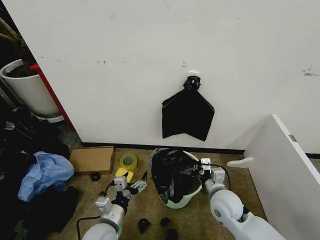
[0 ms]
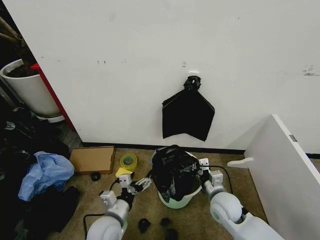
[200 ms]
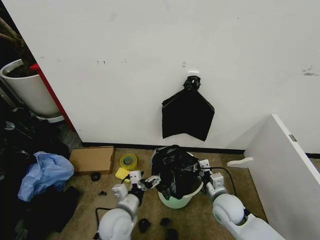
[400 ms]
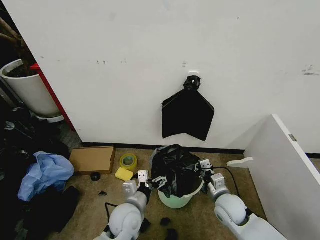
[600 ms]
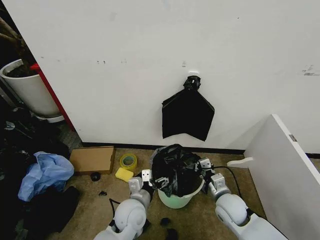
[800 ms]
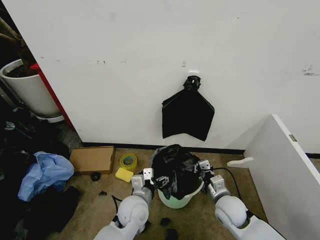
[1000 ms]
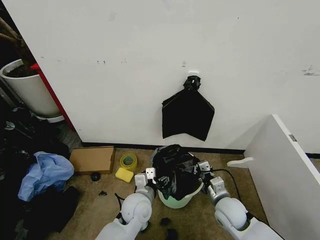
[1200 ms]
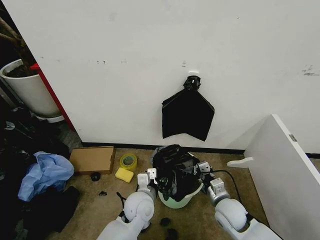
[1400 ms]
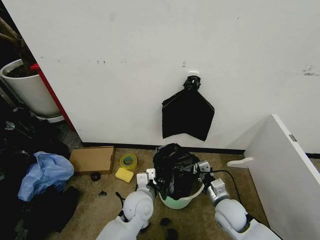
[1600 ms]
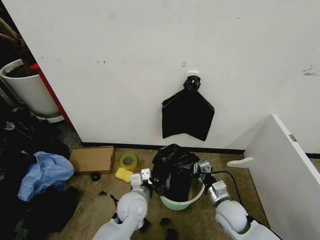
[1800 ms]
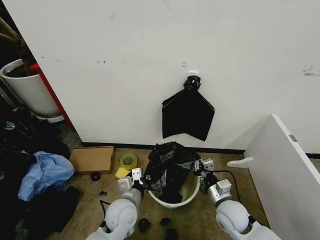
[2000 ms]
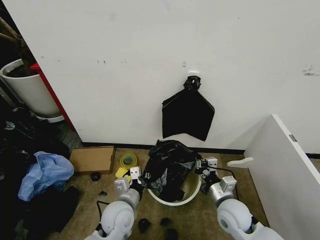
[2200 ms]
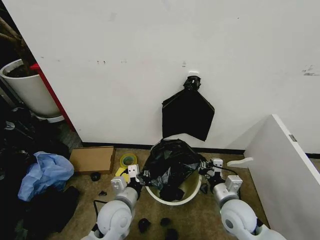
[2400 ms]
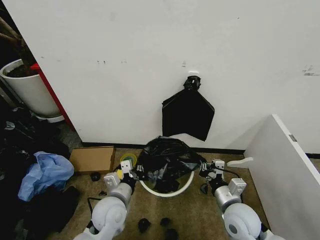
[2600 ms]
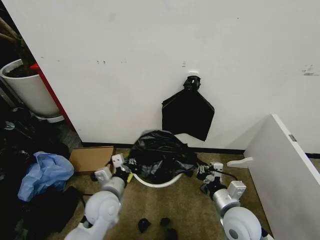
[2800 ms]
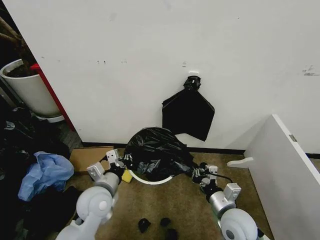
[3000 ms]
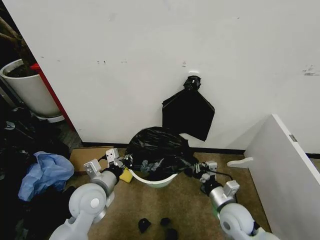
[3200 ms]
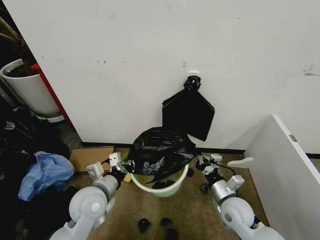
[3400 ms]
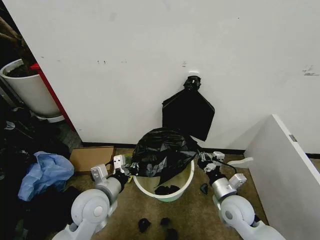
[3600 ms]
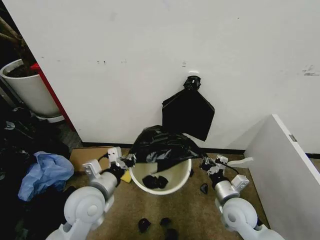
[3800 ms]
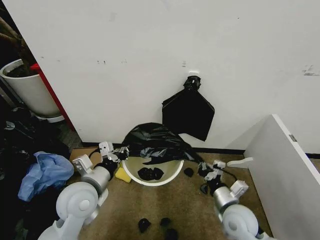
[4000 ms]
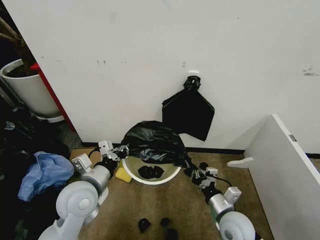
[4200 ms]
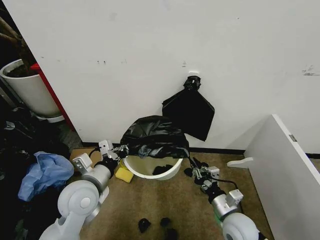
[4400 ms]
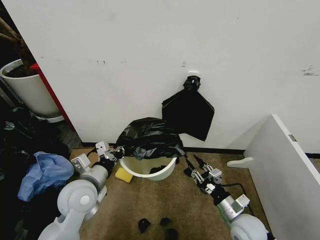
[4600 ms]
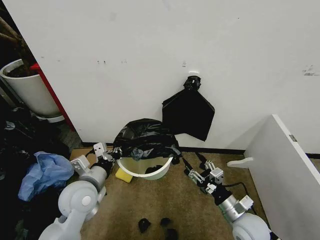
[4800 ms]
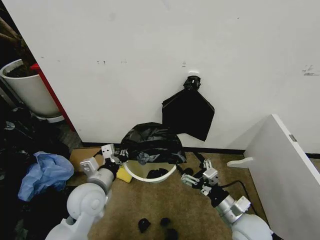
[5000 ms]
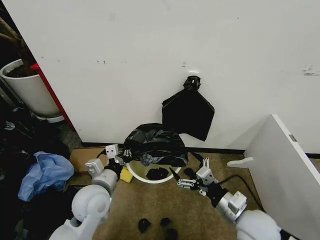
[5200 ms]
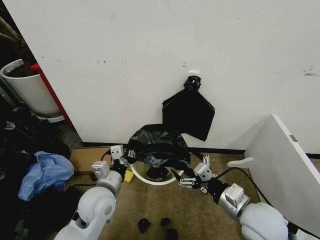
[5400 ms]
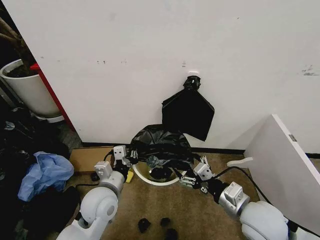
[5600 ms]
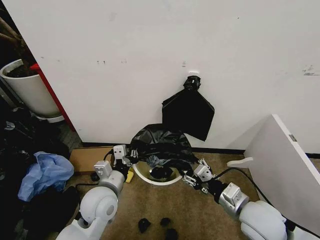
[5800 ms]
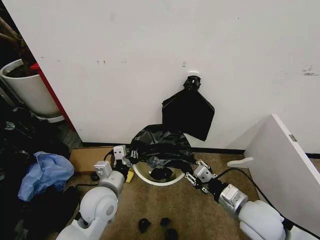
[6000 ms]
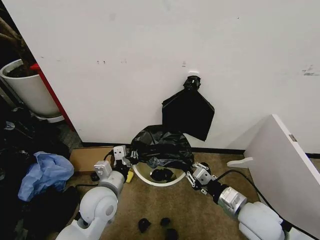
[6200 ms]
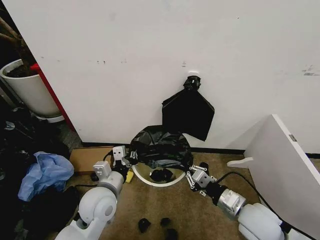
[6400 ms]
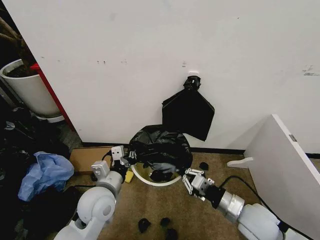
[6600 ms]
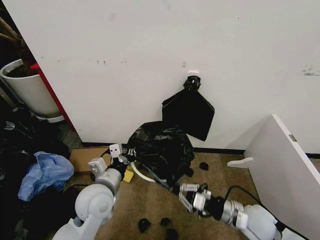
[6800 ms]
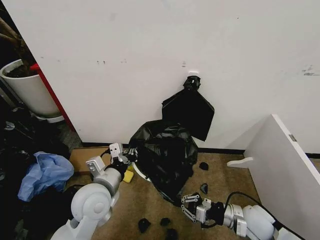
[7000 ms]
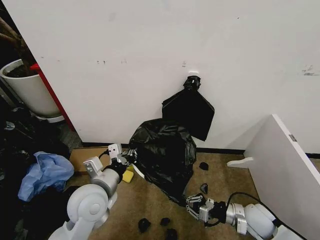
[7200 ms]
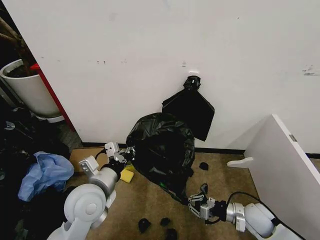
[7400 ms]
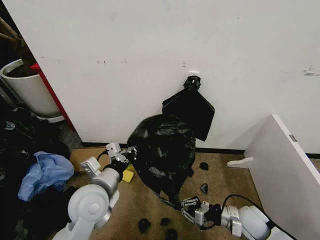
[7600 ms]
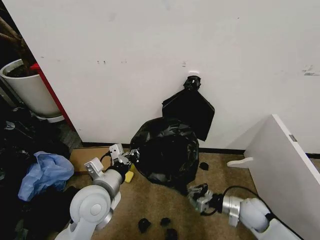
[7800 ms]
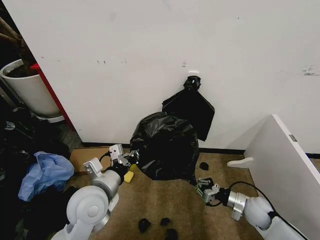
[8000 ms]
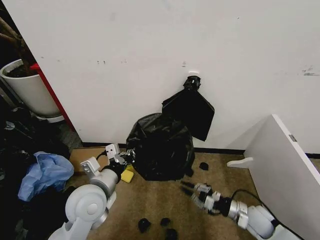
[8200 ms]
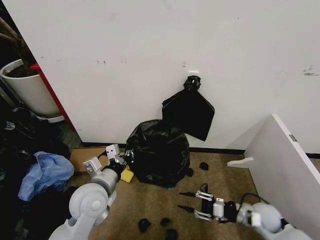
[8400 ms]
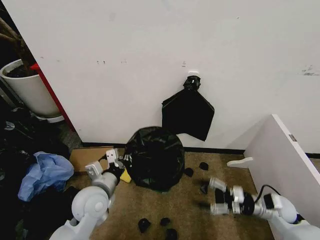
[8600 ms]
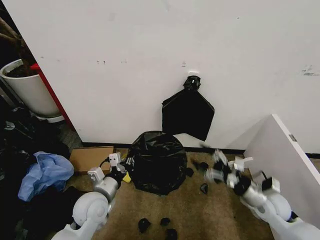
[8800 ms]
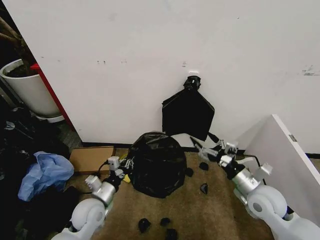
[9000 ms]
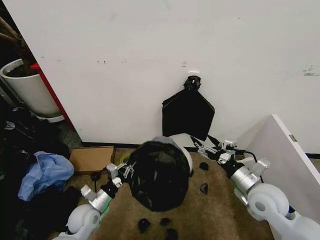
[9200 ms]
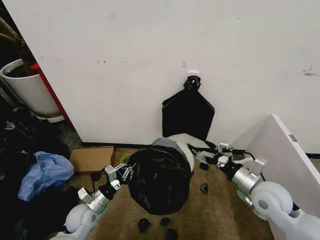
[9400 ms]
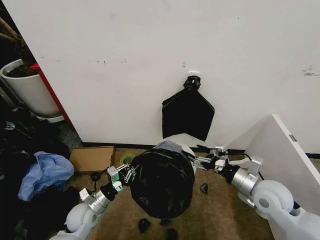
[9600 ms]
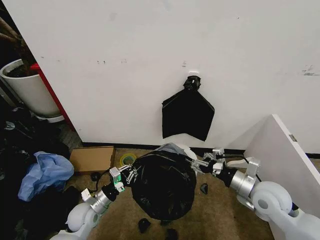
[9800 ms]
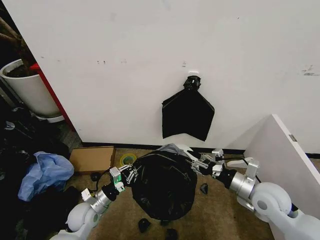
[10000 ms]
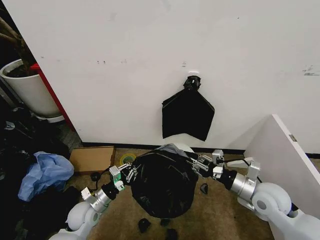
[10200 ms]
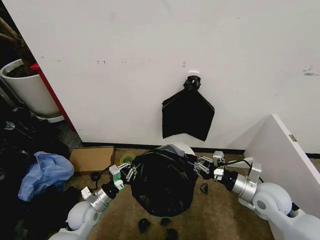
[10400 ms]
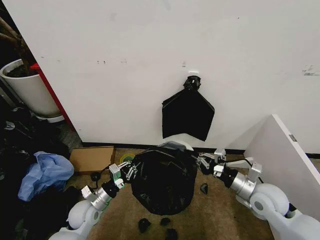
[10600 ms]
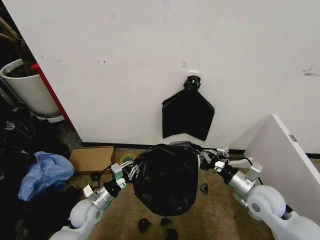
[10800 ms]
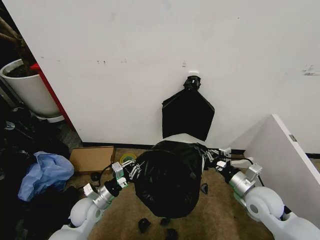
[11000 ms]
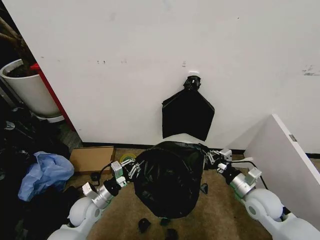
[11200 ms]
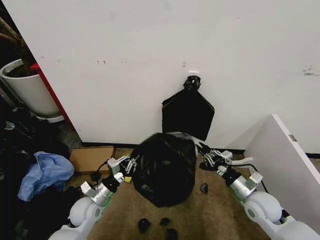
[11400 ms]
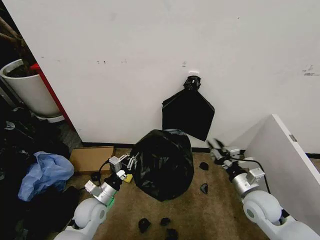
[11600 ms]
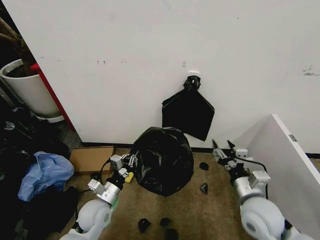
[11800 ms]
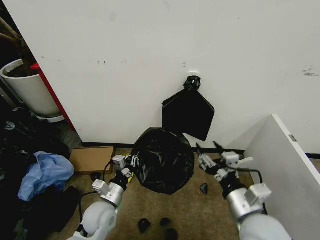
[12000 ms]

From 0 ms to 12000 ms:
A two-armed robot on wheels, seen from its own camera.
Task of the whole recording: Place the garbage bag over the trash bin.
From 0 ms to 1600 ms: The left gripper goes approximately 15 cm to the right and forward, and closes its fingers. Meanwhile the right gripper moves roughly 5 cm.
From 1600 ms to 3000 ms: The left gripper is displaced to the left by roughly 10 cm. The right gripper goes approximately 5 cm upward.
From 3000 ms to 4400 ms: The right gripper changes place by approximately 5 cm, while the left gripper is displaced upward by about 10 cm.
From 4400 ms to 6000 ms: The left gripper shifts by about 5 cm; the right gripper travels upward by roughly 10 cm, and opens, then closes once more.
From 6000 ms to 7600 ms: The right gripper shifts approximately 15 cm downward and to the right, and closes up.
From 7600 ms to 9000 ms: The left gripper shifts about 15 cm downward, while the right gripper is displaced upward by some 15 cm, and opens its fingers.
From 9000 ms to 10400 ms: The right gripper closes its fingers.
From 10400 ms to 12000 ms: The right gripper is displaced backward, to the left and upward by about 15 cm, and opens up. The left gripper heads to the right and upward, covering some 10 cm.

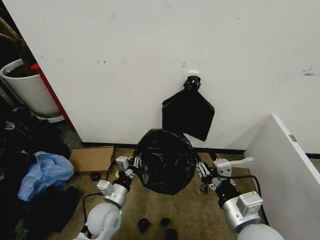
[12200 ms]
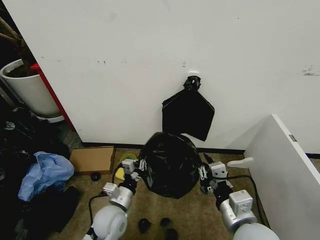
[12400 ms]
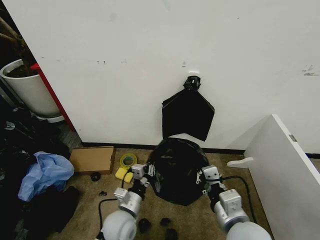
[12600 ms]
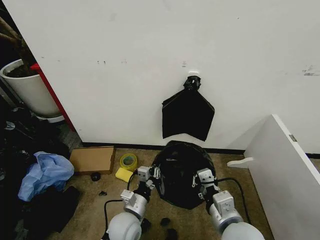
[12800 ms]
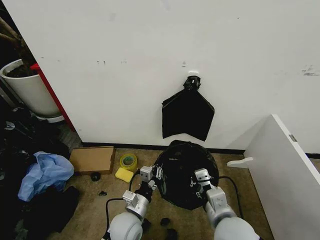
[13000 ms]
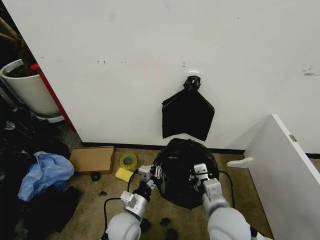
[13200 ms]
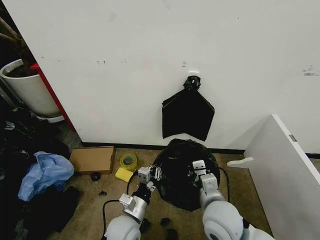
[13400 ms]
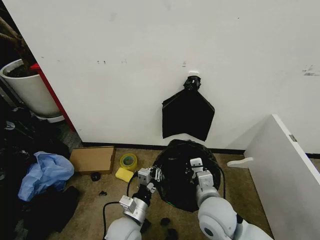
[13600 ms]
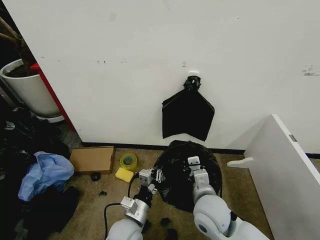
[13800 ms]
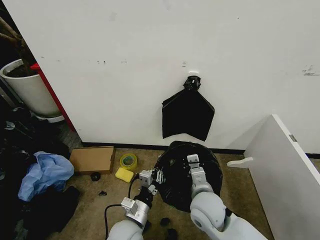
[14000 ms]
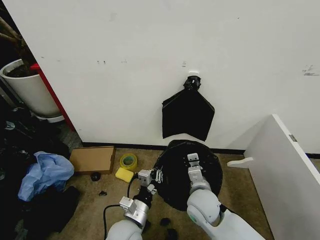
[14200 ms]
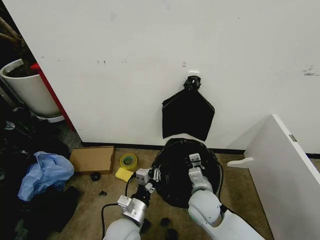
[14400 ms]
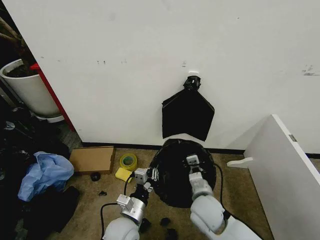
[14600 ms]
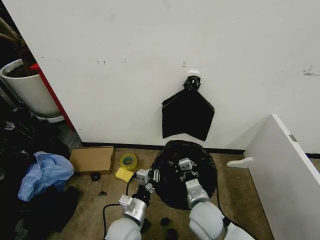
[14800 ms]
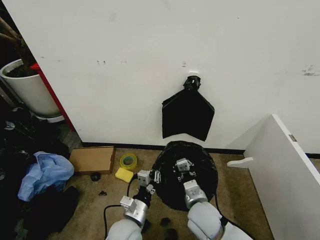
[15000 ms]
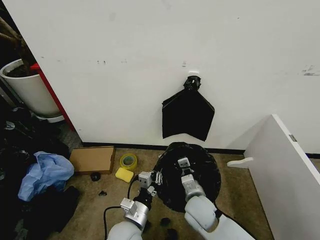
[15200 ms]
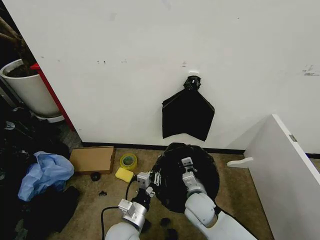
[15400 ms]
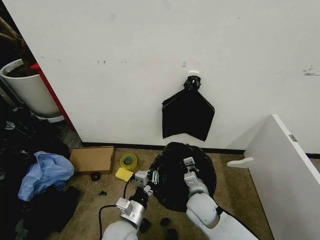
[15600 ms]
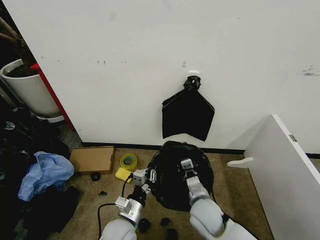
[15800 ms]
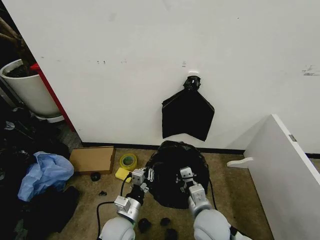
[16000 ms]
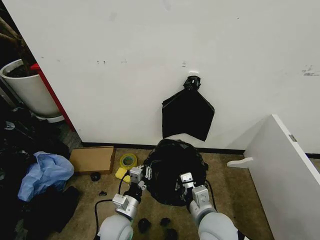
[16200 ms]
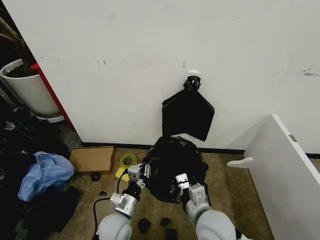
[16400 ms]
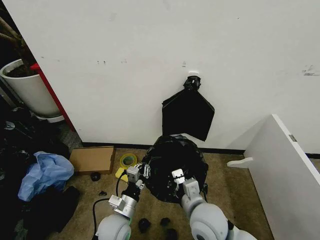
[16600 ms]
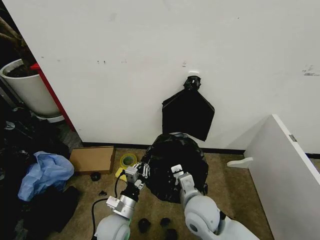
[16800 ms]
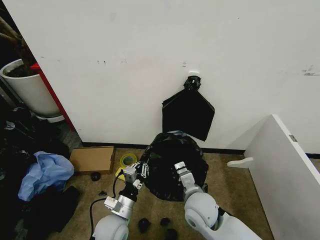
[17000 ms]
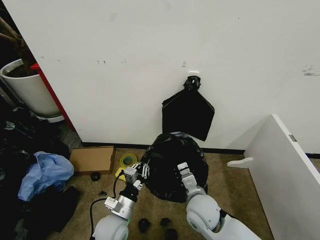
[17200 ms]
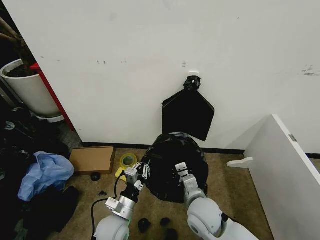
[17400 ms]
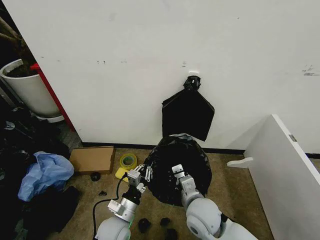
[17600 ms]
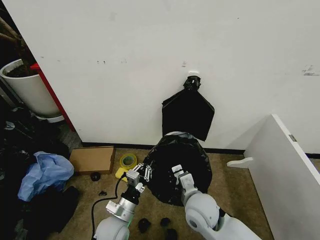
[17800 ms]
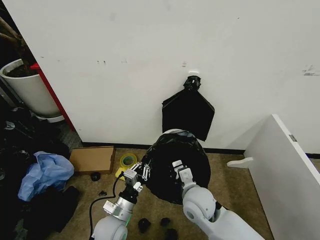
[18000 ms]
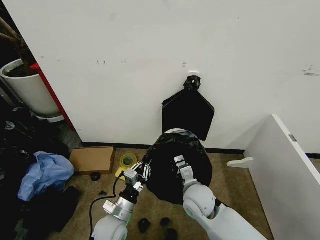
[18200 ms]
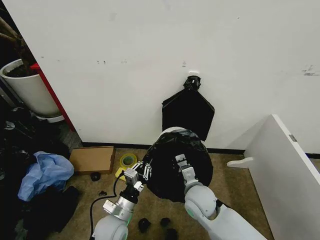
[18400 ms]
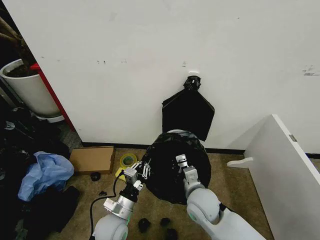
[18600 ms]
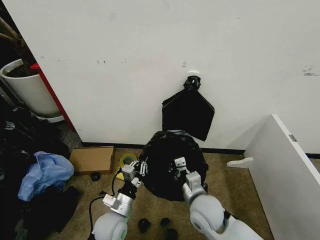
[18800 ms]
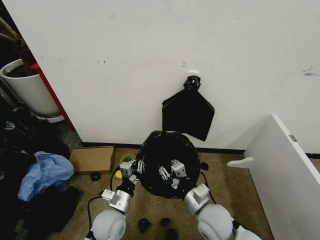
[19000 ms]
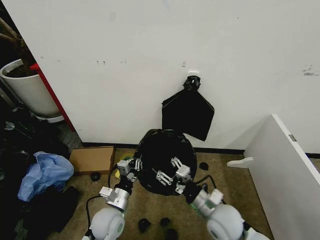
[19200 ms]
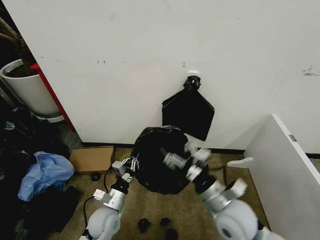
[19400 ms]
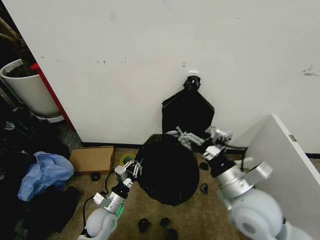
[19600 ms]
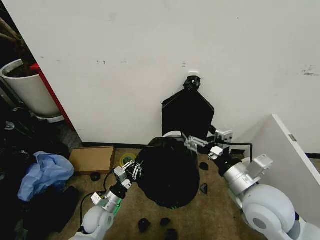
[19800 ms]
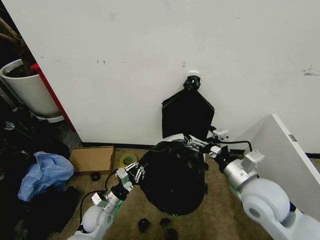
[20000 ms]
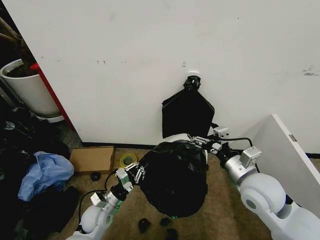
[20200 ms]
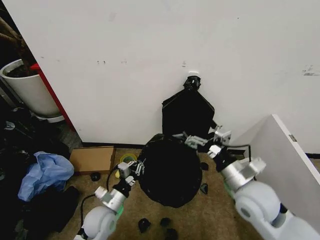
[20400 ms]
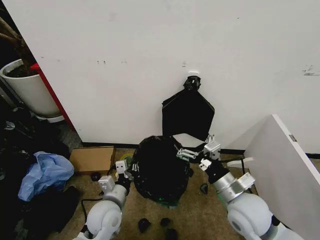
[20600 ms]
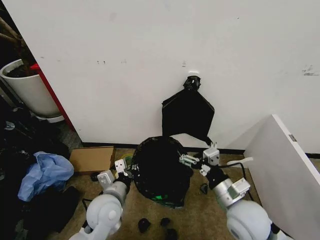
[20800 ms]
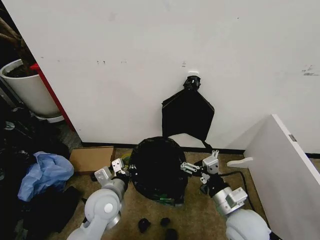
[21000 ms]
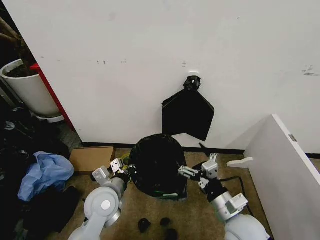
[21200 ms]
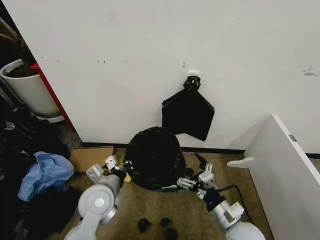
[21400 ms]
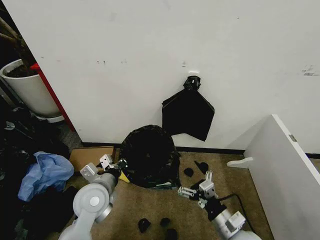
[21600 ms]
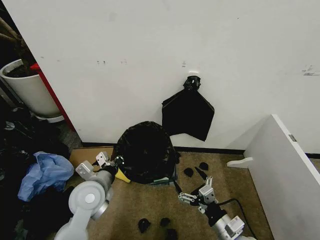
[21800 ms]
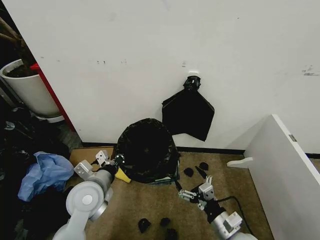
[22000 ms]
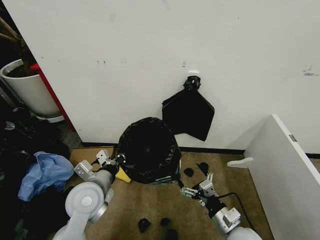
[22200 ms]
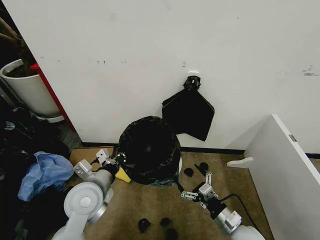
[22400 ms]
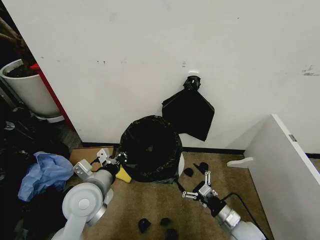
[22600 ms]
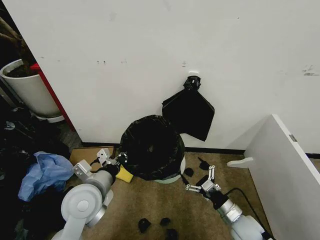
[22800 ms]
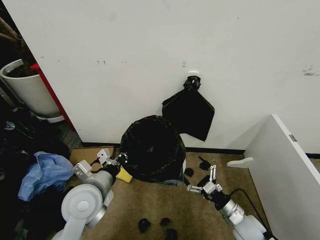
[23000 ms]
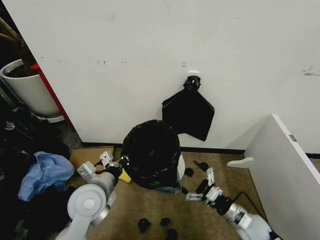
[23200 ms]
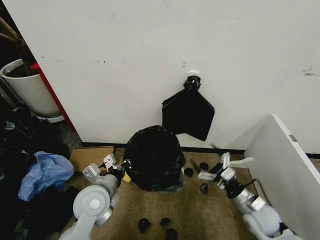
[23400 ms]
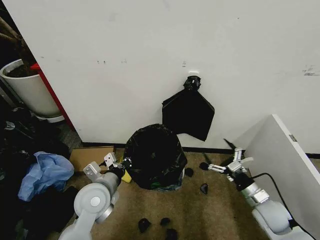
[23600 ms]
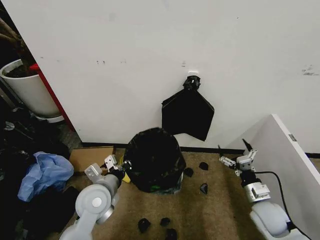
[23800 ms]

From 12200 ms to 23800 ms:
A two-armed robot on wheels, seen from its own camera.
Task of the whole recording: Place the garbage bag over the trash bin.
From 12200 ms to 13600 ms: The left gripper is displaced to the right by approximately 5 cm. Meanwhile the right gripper heads forward, to the left and downward, covering roughly 10 cm, and closes its fingers.
From 13600 ms to 15000 ms: The right gripper heads downward, covering roughly 5 cm.
From 15000 ms to 16600 ms: The right gripper moves upward, roughly 5 cm.
From 16600 ms to 18000 ms: The right gripper travels forward by some 5 cm.
From 18000 ms to 19400 ms: The right gripper travels to the right, backward and upward by roughly 10 cm, and opens its fingers.
From 19400 ms to 21000 ms: The left gripper travels upward by some 10 cm, while the right gripper goes upward and returns, about 10 cm each way.
From 21000 ms to 22400 ms: The left gripper goes some 5 cm upward; the right gripper is displaced downward by about 10 cm.
From 22400 ms to 23800 ms: The right gripper is displaced to the right and forward by some 10 cm.
